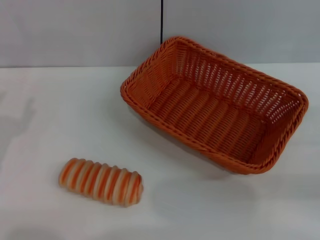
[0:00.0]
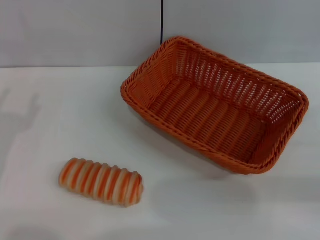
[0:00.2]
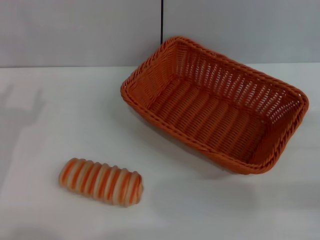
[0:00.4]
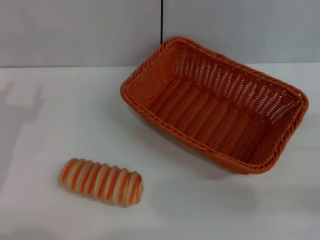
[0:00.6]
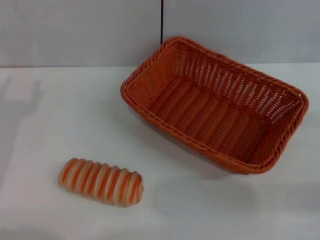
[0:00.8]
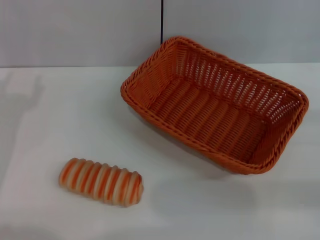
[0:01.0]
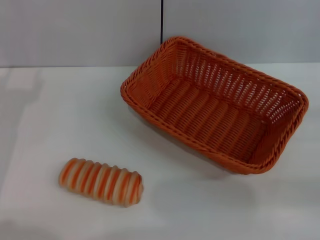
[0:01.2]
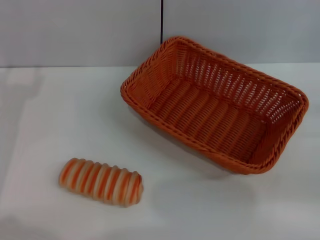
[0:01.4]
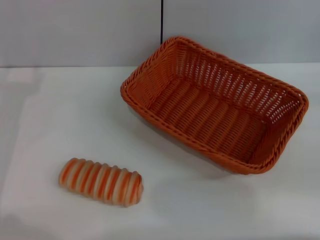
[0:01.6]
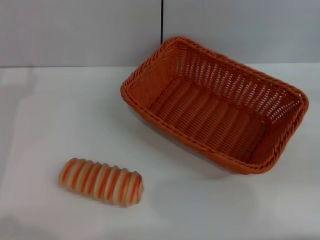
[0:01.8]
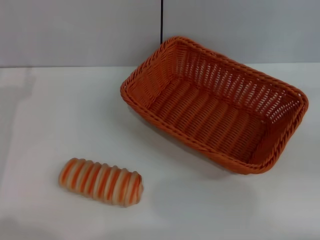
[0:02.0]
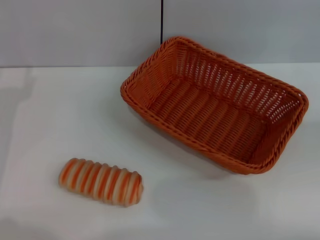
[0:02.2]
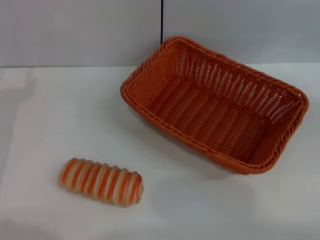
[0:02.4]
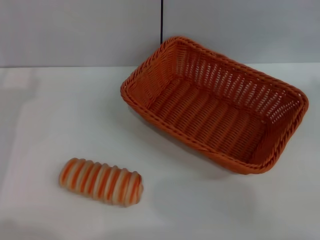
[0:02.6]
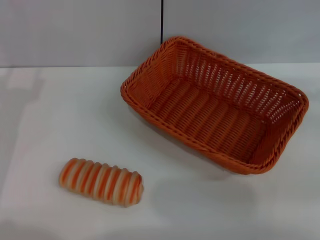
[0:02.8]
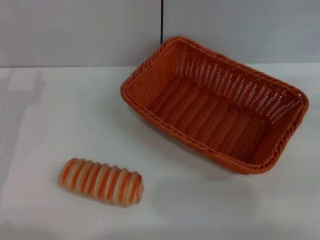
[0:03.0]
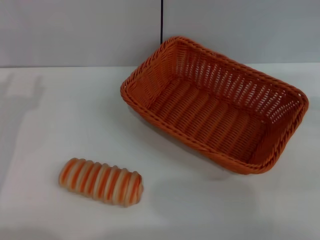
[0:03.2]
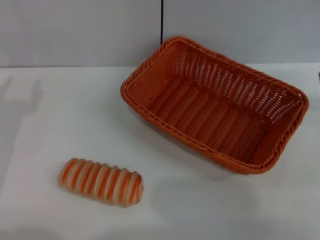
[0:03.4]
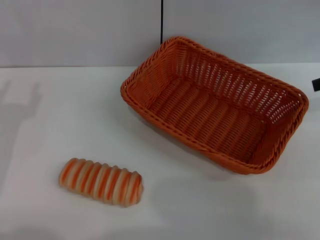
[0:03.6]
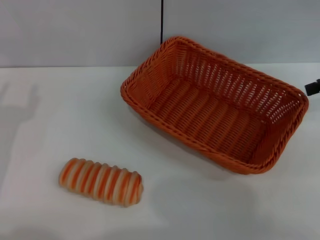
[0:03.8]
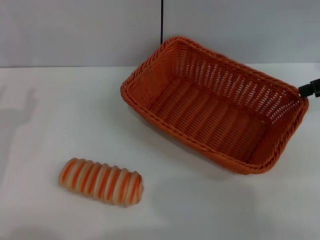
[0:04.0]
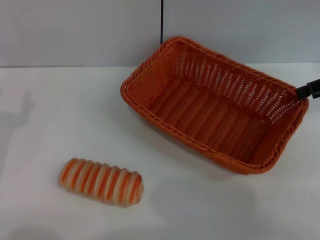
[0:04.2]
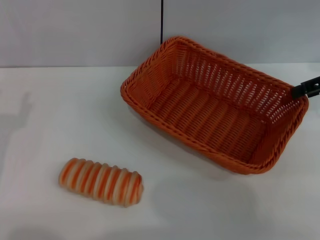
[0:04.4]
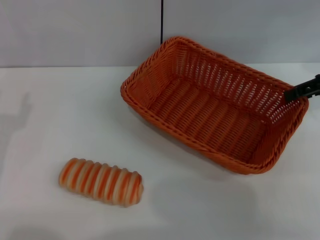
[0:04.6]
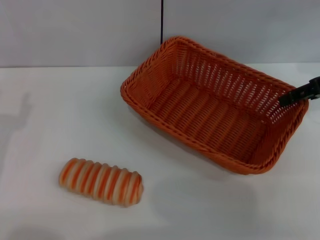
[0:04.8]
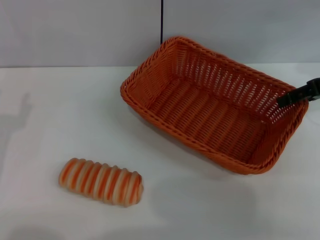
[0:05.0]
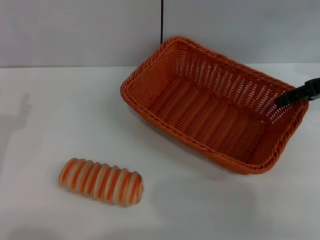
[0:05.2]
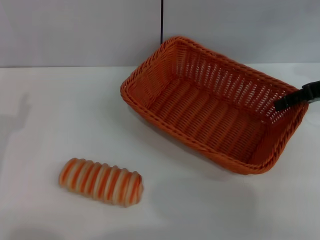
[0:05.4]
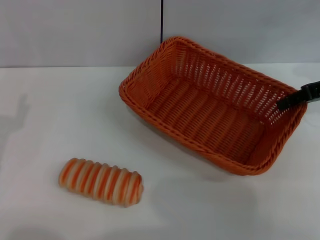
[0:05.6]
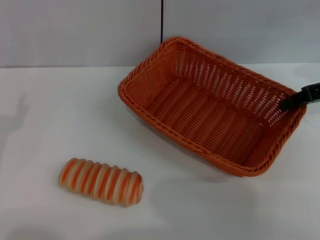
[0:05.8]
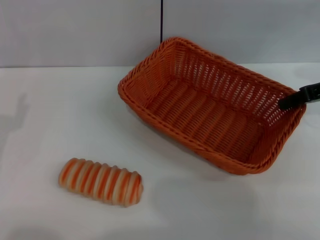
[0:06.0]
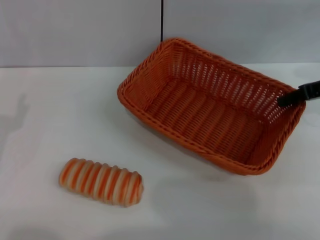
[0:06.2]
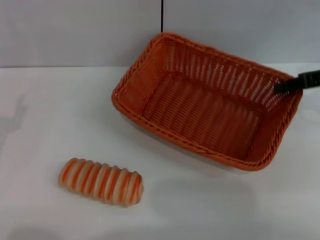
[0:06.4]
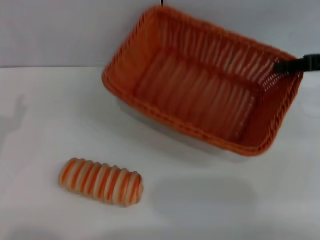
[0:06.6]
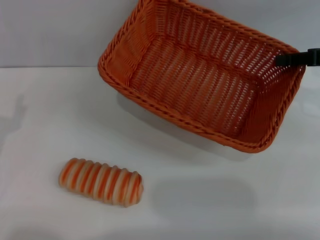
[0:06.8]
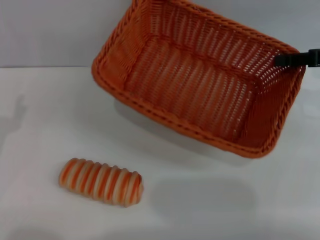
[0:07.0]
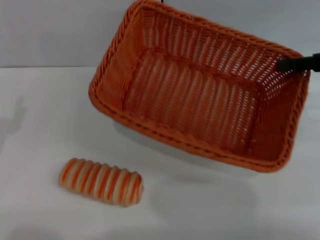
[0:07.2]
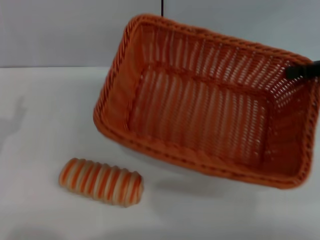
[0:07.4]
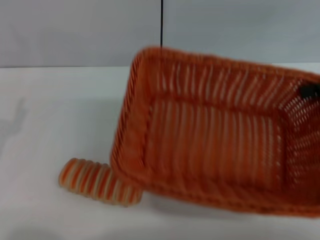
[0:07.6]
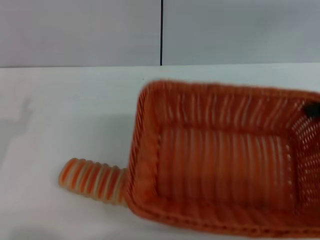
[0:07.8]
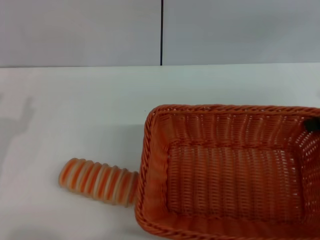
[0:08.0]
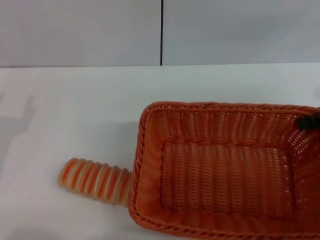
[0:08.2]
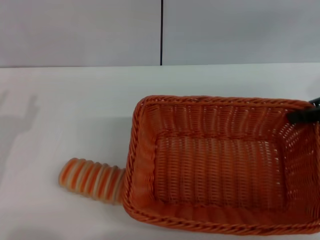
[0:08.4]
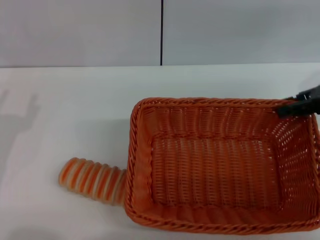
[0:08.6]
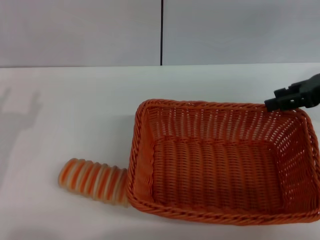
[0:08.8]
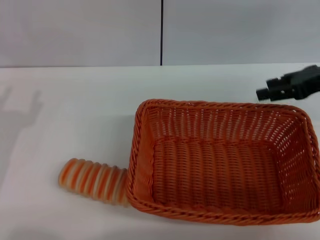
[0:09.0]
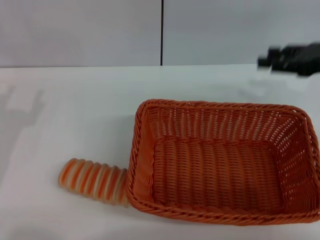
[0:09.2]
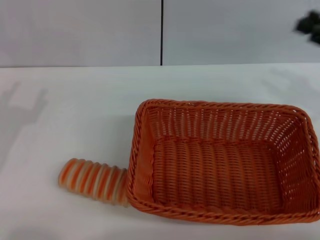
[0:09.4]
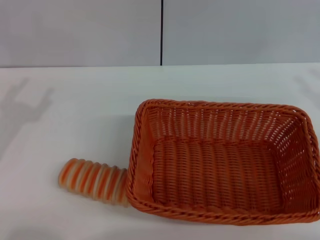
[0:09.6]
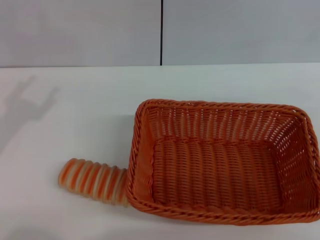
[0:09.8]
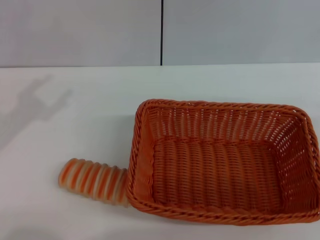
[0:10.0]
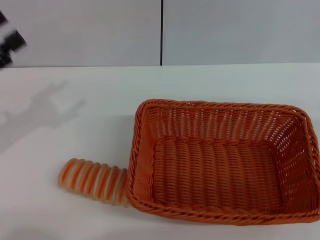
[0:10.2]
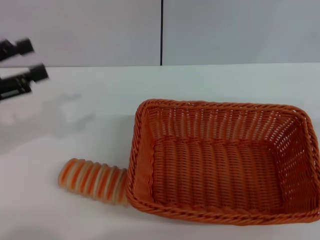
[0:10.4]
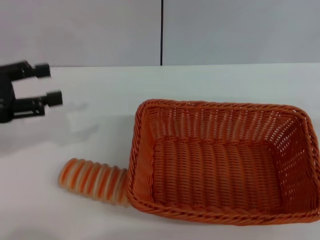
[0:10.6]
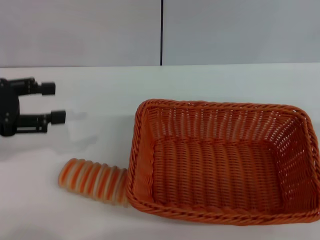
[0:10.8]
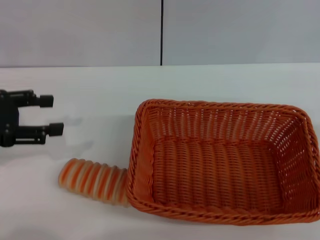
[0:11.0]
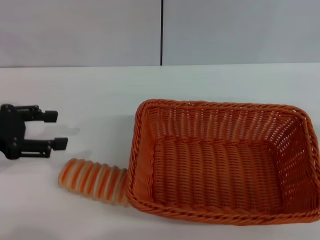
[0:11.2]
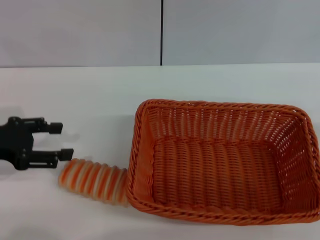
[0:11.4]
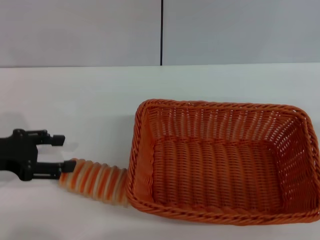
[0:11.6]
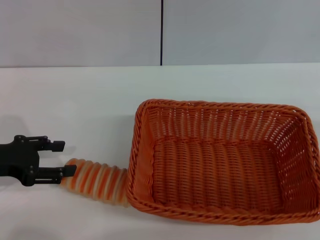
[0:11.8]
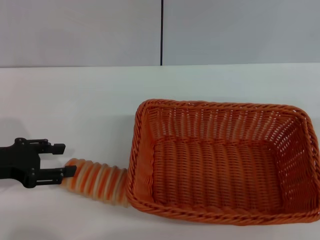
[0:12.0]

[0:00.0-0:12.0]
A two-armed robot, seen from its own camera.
Step, 0:00.0 to 0:06.8: Pick up the light basket with the right gripper.
Step, 0:07.0 to 0:09.0: Place the light basket in the center of view with the right gripper.
0:04.4 to 0:06.0: The right gripper closes up.
0:06.0 to 0:07.6: The right gripper travels upward by some 5 cm.
0:07.6 to 0:09.0: The right gripper moves approximately 5 cm, and opens.
0:09.0 to 0:10.4: The right gripper goes approximately 20 cm backward, downward and to the right. Meanwhile the left gripper travels upward and forward by roughly 10 cm.
0:10.4 to 0:12.0: The left gripper travels downward by approximately 5 cm.

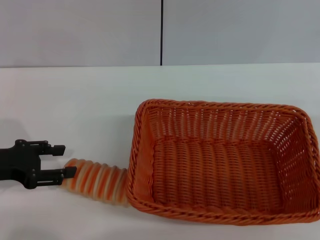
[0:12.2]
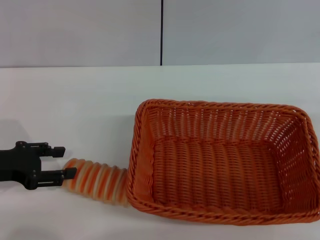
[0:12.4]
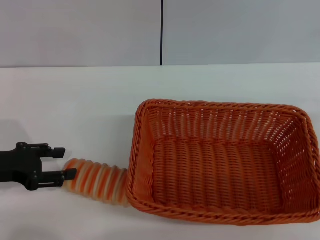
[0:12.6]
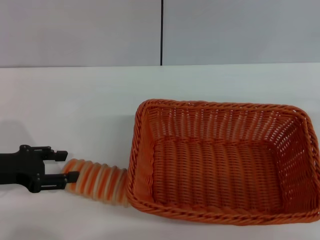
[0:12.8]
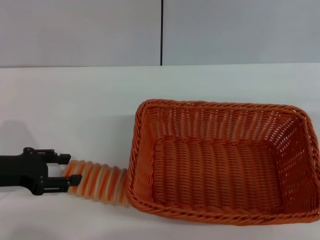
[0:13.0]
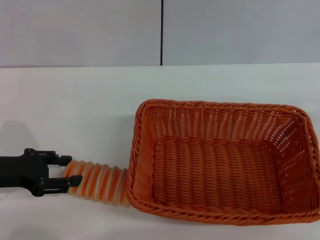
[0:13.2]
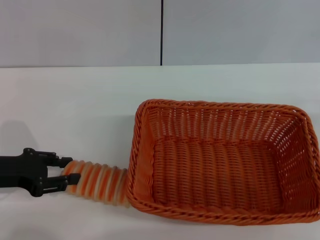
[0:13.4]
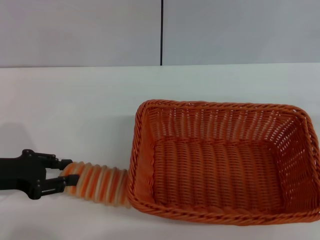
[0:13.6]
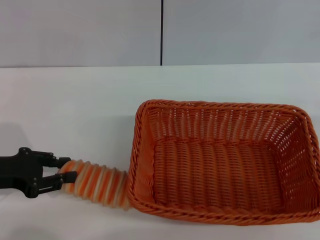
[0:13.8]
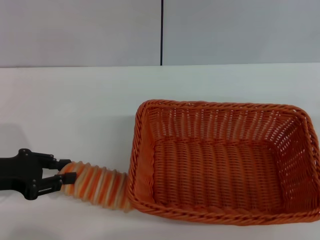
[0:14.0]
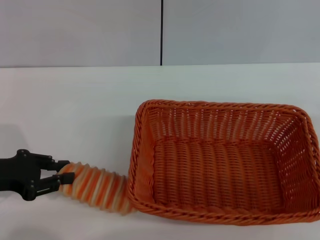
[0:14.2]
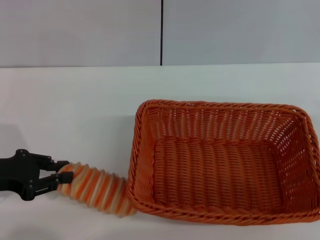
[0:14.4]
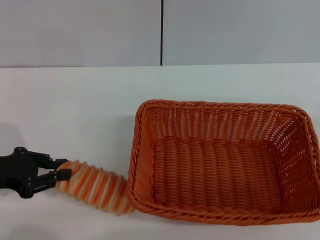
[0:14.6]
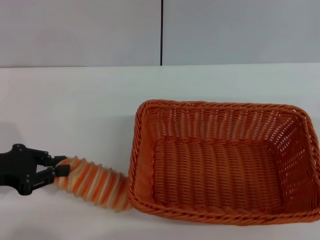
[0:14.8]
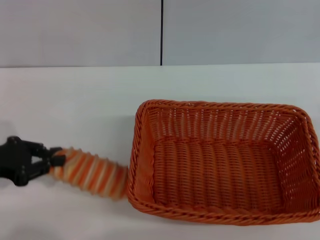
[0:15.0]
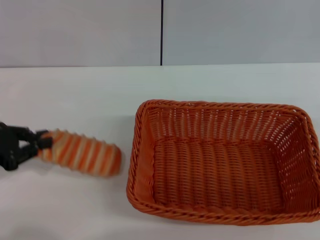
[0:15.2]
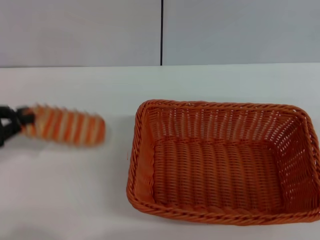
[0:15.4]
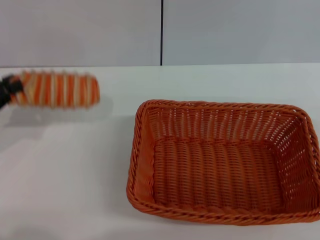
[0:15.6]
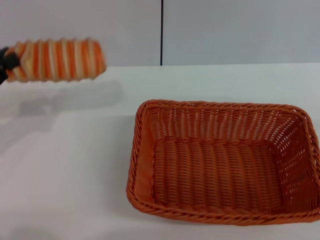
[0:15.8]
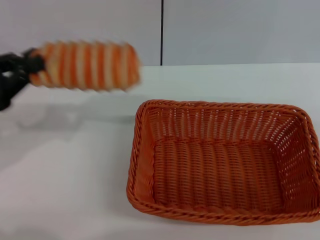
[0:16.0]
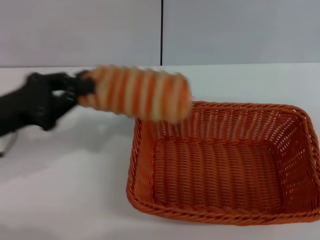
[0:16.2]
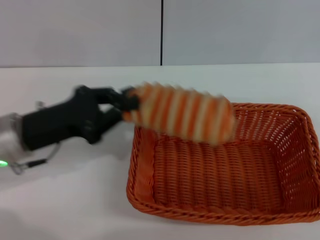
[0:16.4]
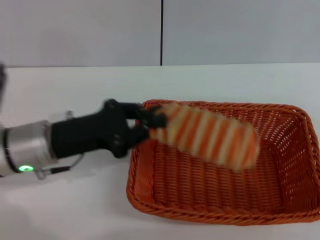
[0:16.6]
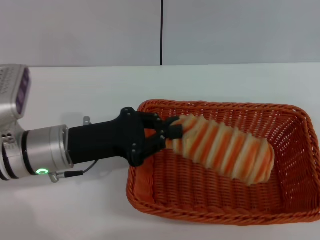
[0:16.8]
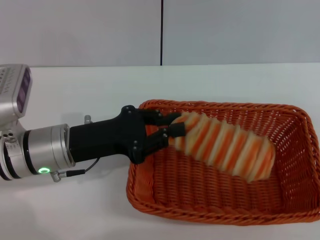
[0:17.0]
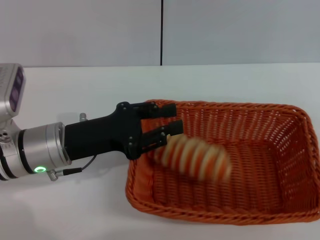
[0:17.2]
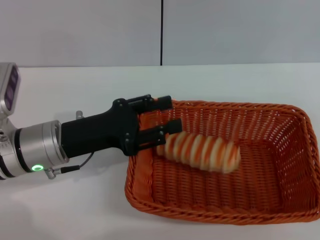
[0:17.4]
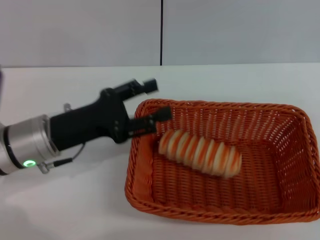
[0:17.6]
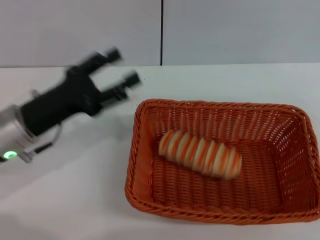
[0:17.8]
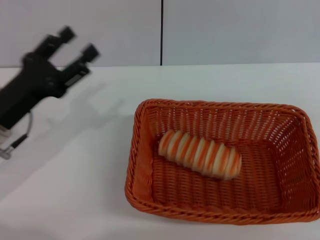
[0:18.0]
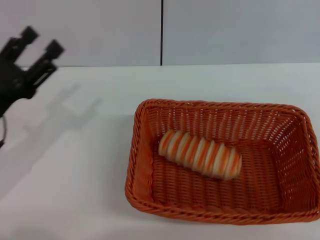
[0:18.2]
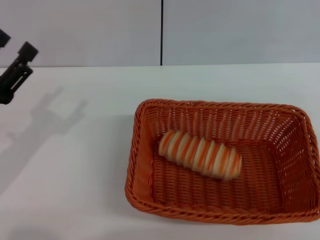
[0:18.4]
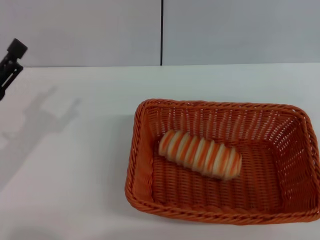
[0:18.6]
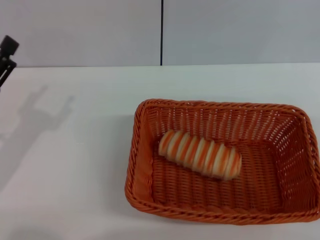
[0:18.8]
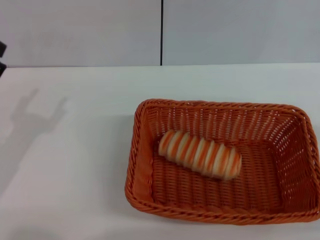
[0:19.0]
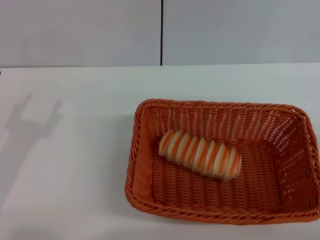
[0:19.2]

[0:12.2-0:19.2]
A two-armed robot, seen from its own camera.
Step, 0:12.2 to 0:15.6: Pick up the long bread with the left gripper.
Step, 0:15.8 to 0:17.4: Place the long bread into the light basket with the left gripper.
0:12.2 to 0:13.6: The grippers make only small movements.
0:13.6 to 0:15.0: The left gripper closes up.
0:15.0 to 0:16.4: The left gripper moves to the right, about 10 cm.
0:16.4 to 0:17.8: The left gripper opens up.
0:17.8 to 0:19.2: The left gripper is displaced to the left and backward by roughly 10 cm. The right gripper moves roughly 5 cm.

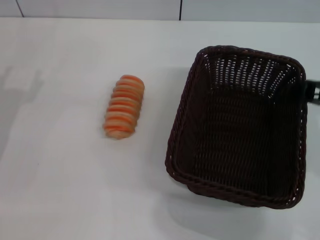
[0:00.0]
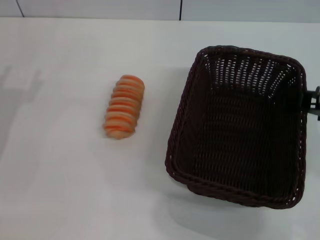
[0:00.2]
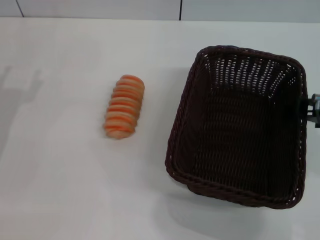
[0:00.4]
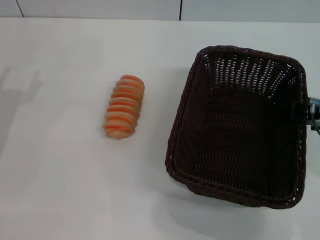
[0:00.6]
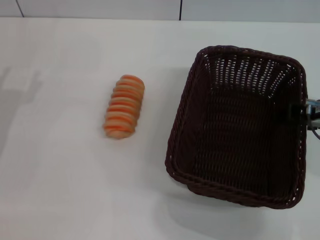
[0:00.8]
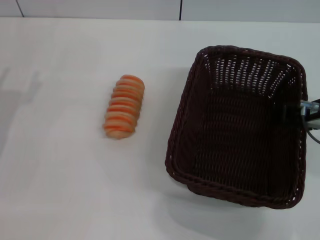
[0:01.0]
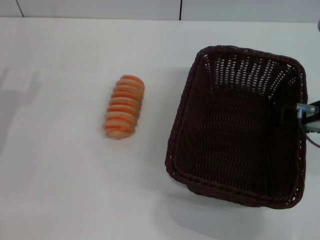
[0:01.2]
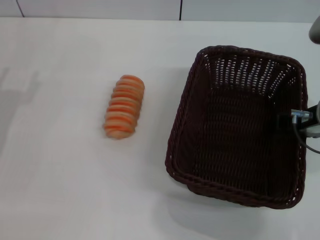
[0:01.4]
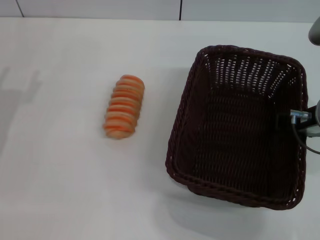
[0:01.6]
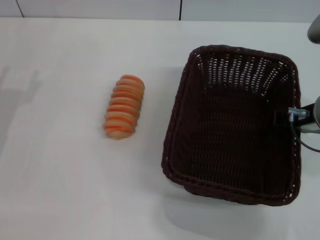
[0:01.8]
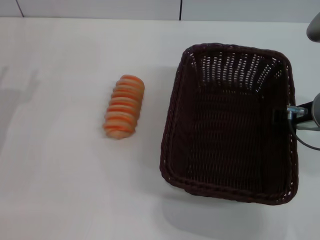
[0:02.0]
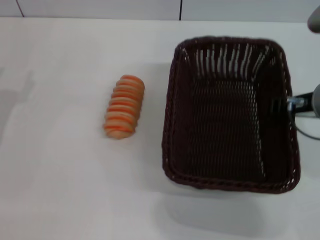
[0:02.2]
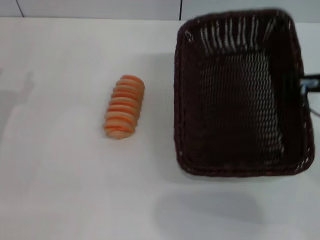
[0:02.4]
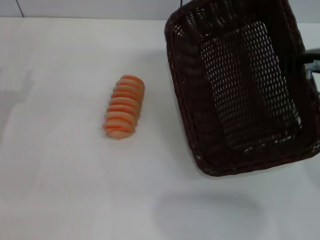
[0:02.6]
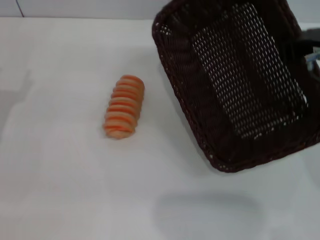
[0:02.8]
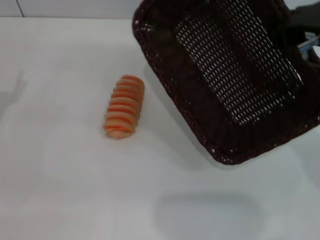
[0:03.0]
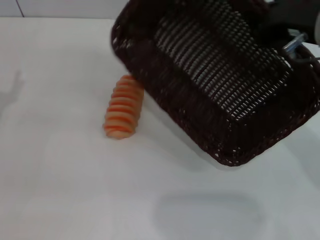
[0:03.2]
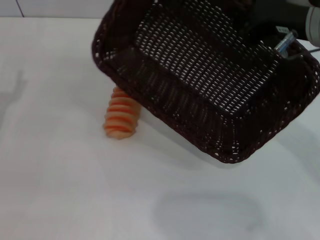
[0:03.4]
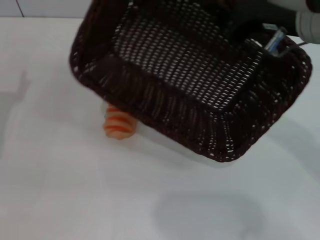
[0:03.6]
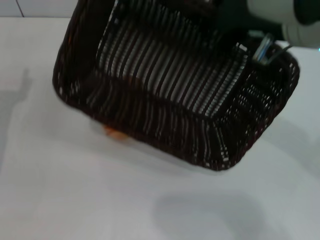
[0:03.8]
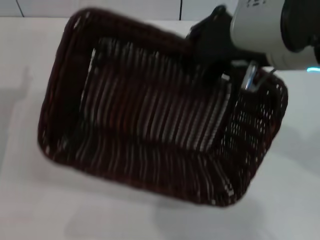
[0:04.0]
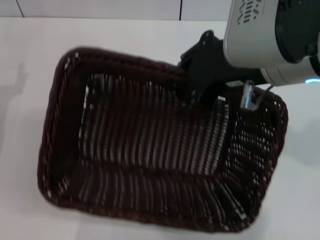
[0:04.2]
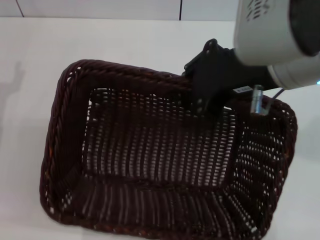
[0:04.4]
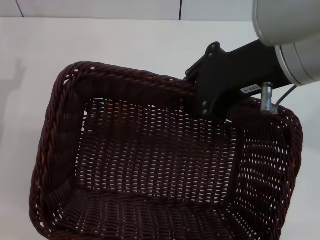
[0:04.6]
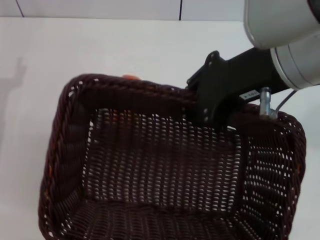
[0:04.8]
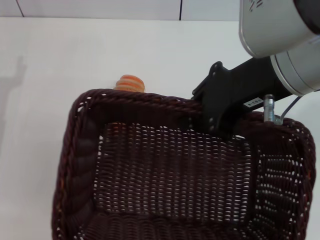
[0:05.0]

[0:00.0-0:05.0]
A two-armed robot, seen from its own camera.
Step, 0:00.0 to 0:02.4: Pick up the dark basket with the right gripper.
0:00.0 to 0:01.6: The right gripper travels downward by some 5 cm.
0:01.6 to 0:03.4: The right gripper travels upward by some 10 cm, and closes.
